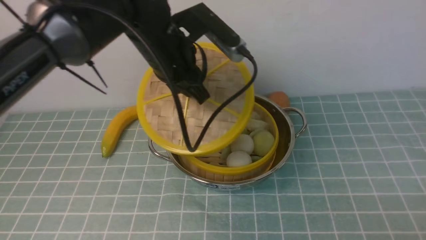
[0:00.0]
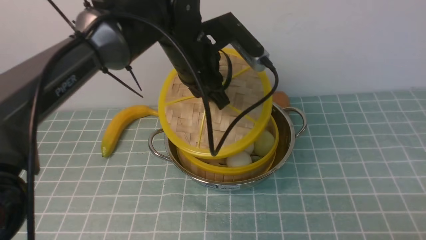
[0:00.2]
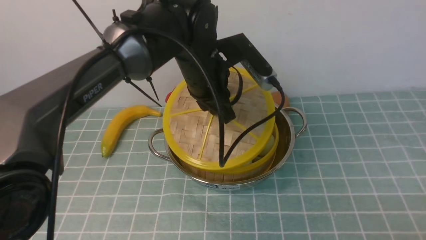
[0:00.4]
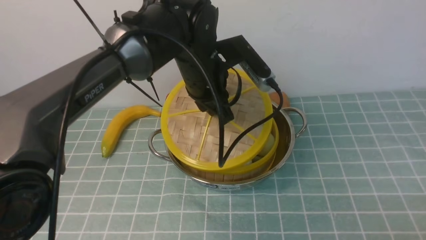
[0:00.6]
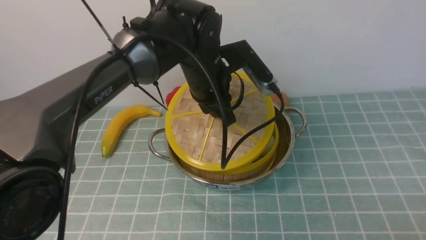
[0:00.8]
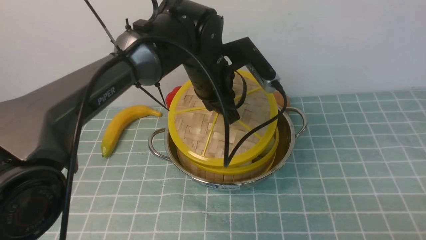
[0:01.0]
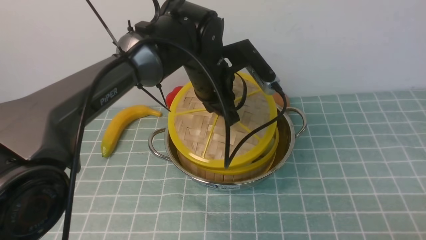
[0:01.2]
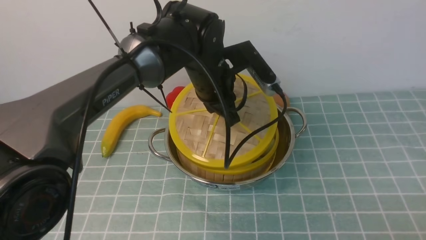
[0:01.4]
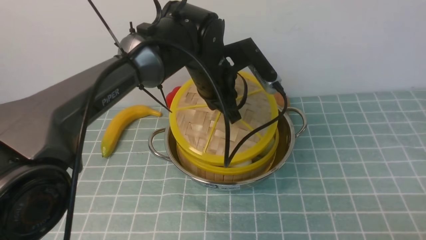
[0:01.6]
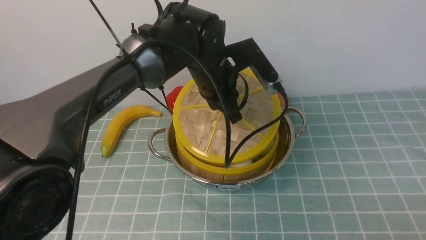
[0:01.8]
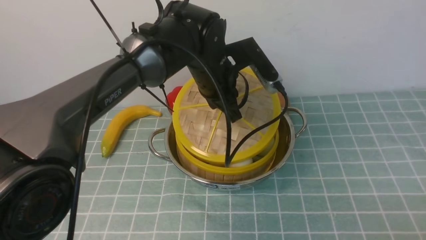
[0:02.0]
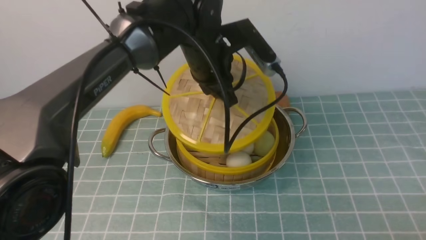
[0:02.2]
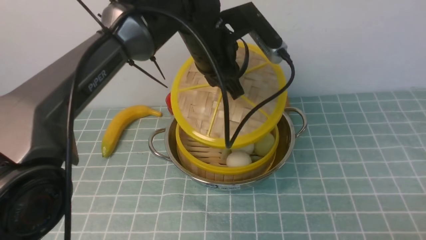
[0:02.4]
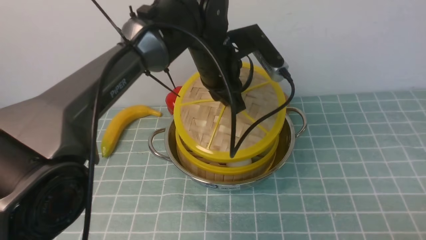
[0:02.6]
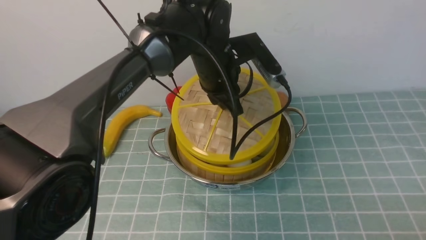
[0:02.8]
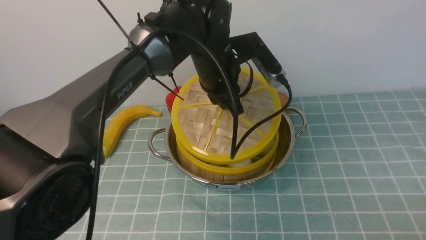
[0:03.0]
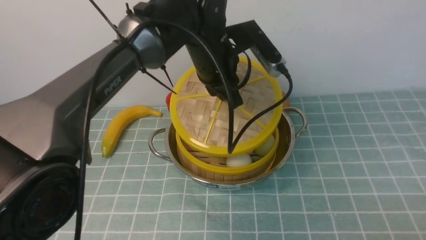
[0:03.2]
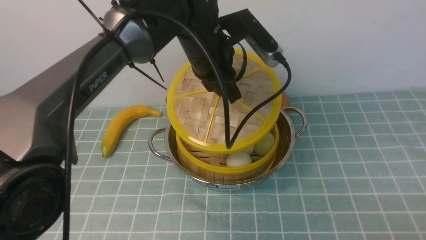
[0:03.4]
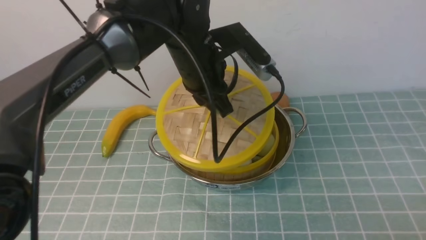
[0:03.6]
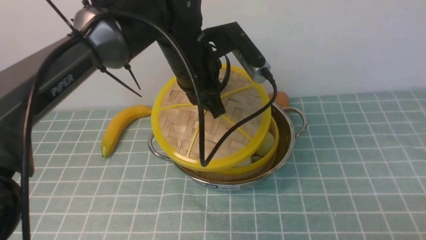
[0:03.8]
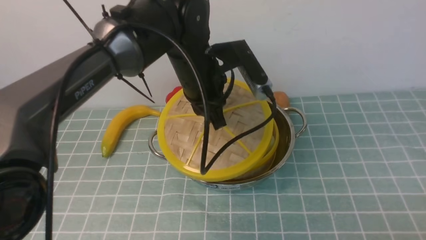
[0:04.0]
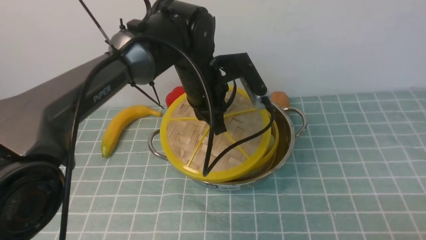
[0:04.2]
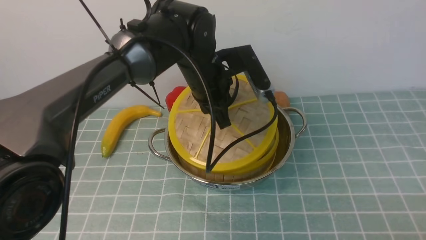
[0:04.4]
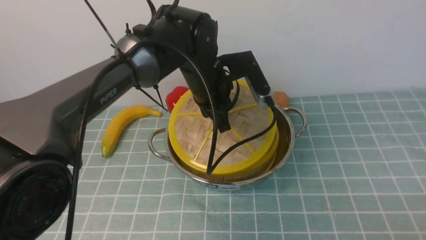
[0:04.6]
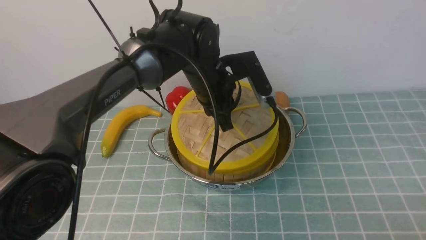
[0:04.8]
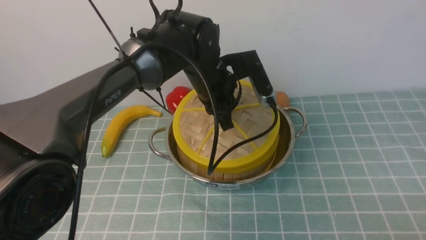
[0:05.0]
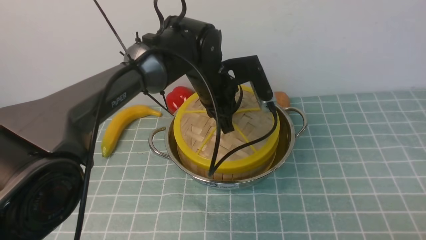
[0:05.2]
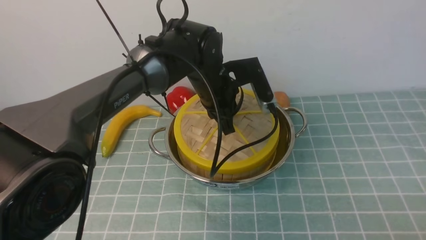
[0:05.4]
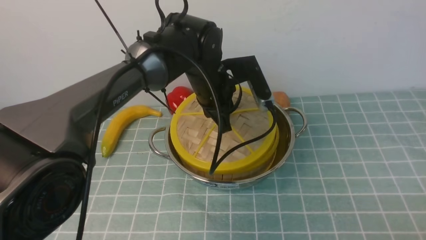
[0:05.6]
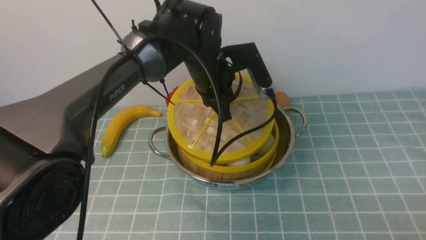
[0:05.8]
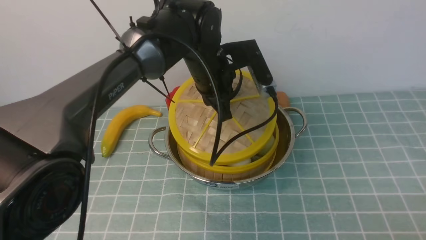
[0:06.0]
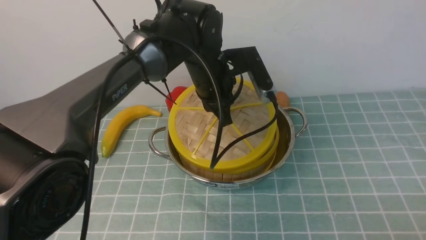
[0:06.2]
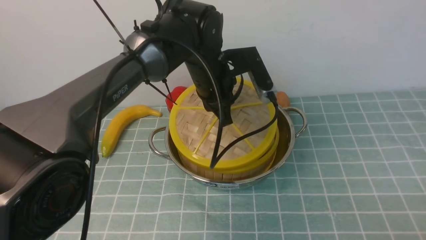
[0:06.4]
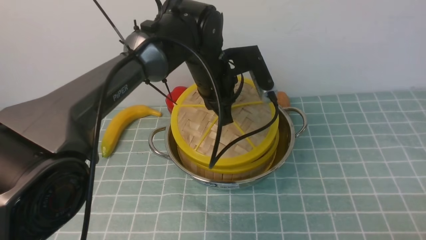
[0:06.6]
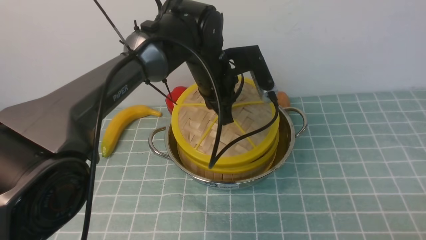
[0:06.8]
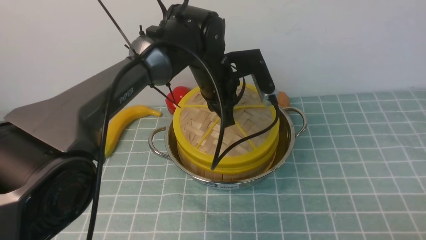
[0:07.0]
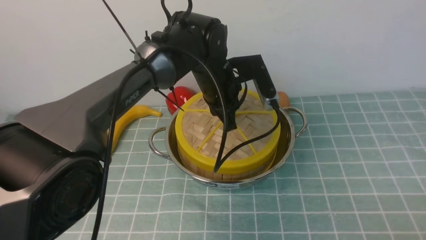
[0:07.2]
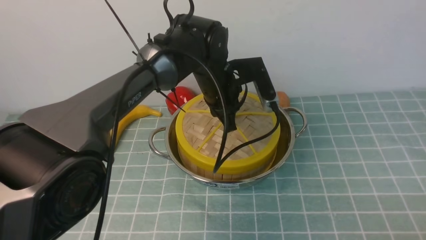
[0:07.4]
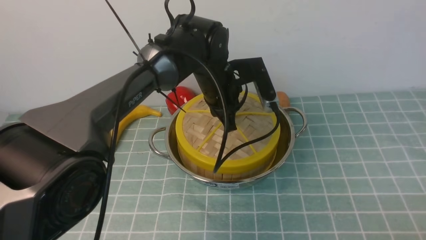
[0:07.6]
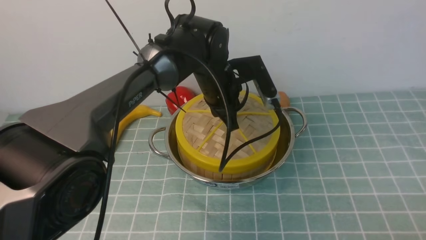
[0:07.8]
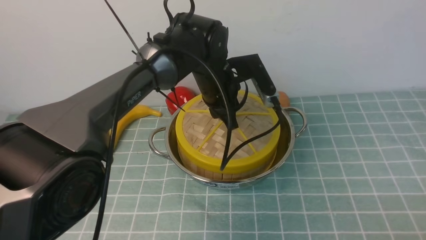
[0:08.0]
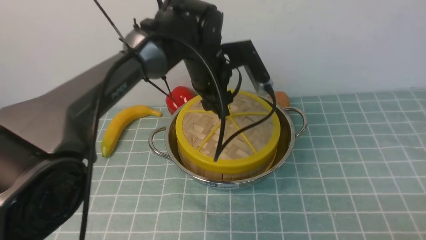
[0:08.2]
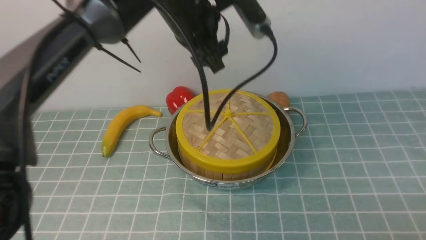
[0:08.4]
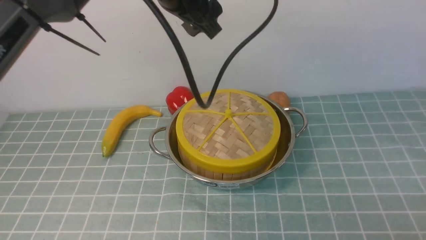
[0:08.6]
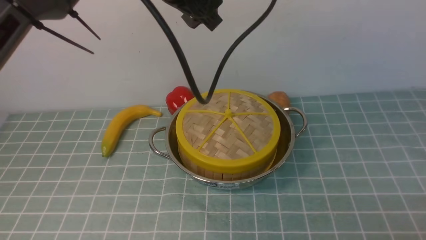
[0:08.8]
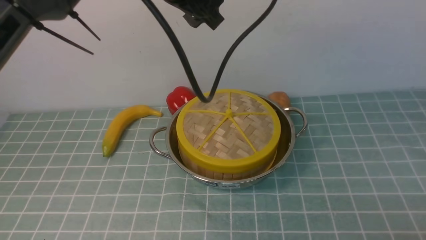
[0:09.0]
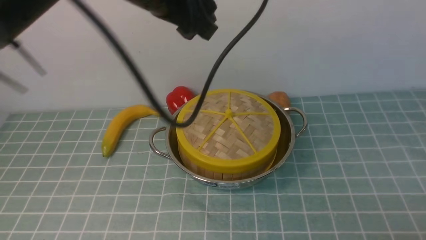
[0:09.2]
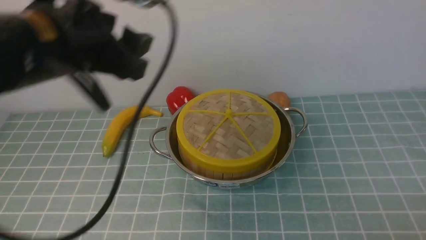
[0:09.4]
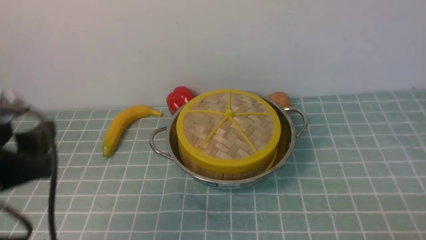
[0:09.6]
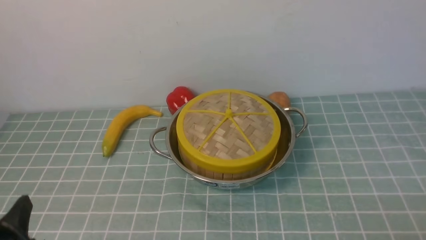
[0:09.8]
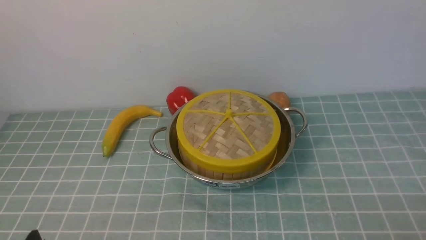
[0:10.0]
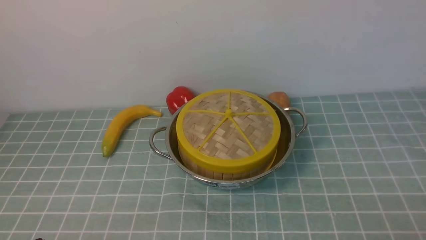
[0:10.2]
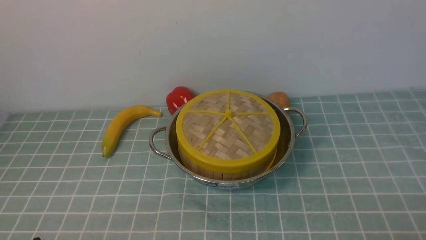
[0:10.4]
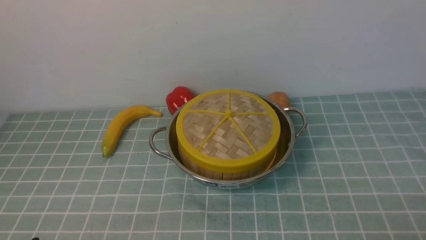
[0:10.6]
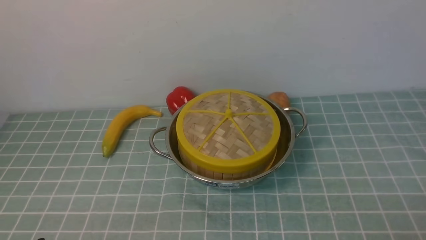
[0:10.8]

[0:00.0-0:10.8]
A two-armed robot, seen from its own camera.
Task of the whole recording: place the steamer in the pot on the blue tablecloth, and put the lid on the steamer.
Step, 0:00.0 to 0:08.6: use the left arm to place the steamer lid on the steamer.
0:00.0 to 0:01.6: The left gripper moves to the right and downward, roughly 10 cm.
0:01.6 to 0:07.8: There are only small adjustments of the grippers.
0:07.8 to 0:09.2: The left gripper is displaced upward and backward by about 20 cm, and opens its fingers.
0:09.2 to 0:10.8: The left gripper goes roughly 40 cm backward, downward and to the left.

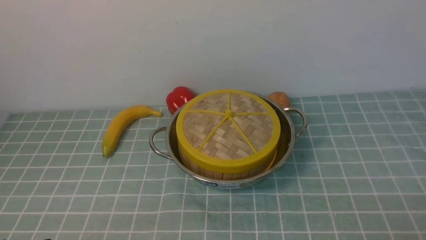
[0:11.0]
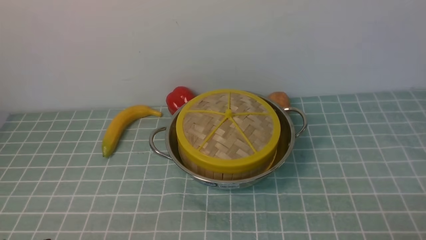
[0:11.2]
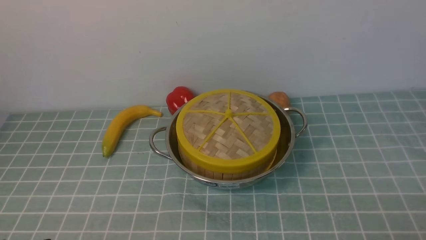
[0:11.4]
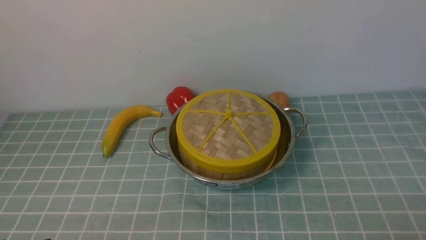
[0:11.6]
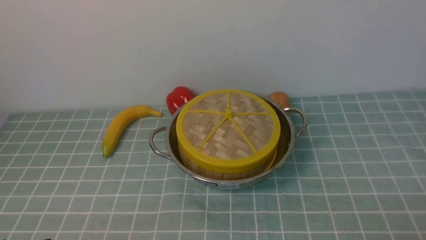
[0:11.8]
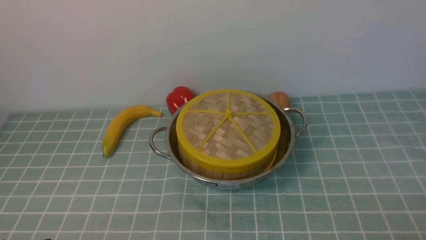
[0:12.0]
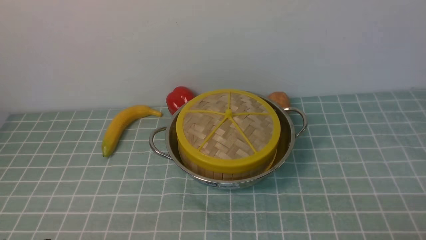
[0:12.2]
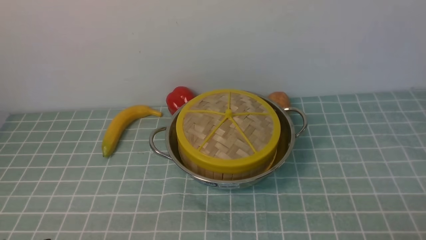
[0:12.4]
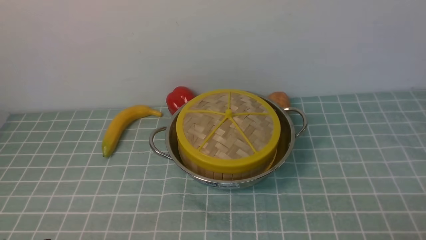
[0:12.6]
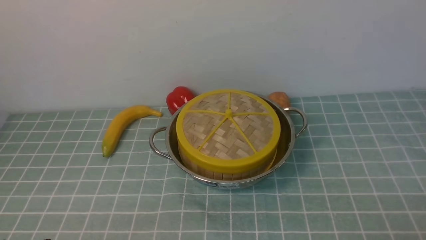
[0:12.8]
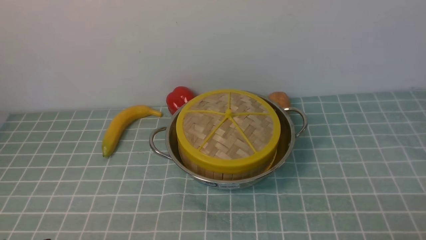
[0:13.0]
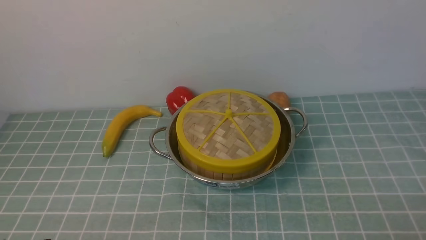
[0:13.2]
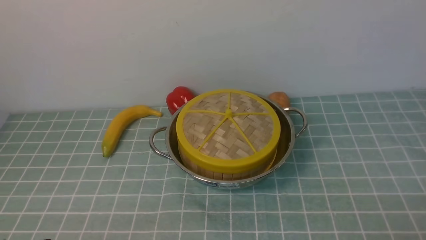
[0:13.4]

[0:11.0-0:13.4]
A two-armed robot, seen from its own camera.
Task of the whole recording: place the steamer in the pot on the blue tablecloth, and put the lid on the steamer.
0:11.0 to 0:13.4: Neither gripper changes place.
